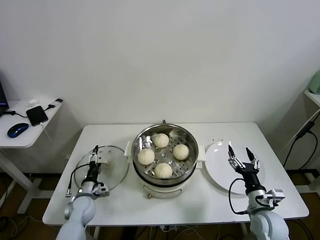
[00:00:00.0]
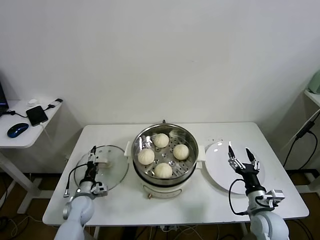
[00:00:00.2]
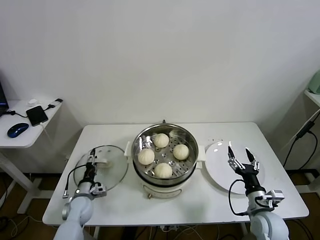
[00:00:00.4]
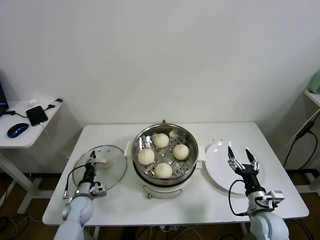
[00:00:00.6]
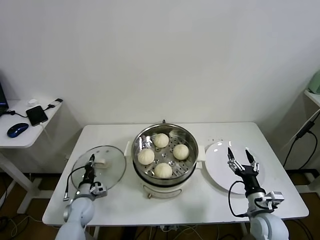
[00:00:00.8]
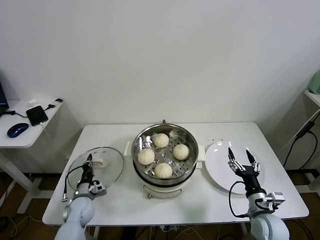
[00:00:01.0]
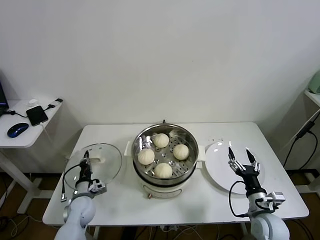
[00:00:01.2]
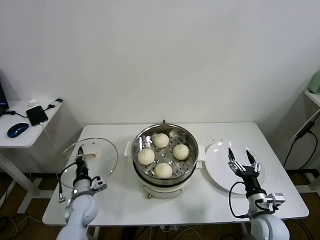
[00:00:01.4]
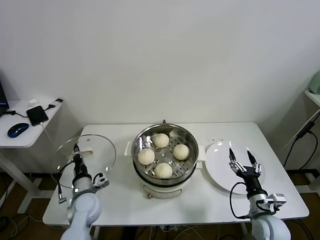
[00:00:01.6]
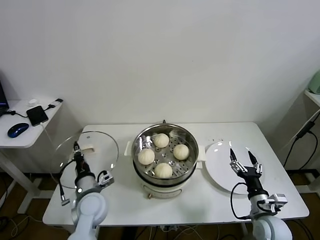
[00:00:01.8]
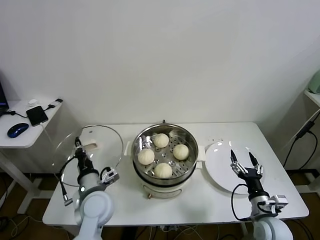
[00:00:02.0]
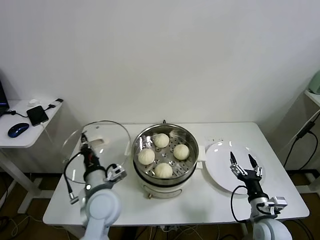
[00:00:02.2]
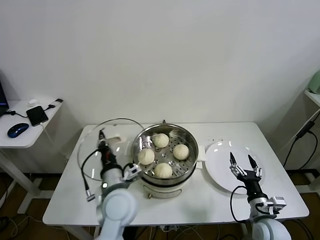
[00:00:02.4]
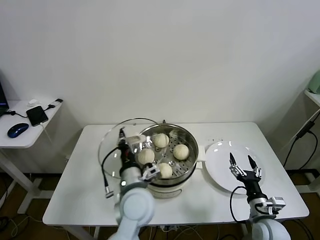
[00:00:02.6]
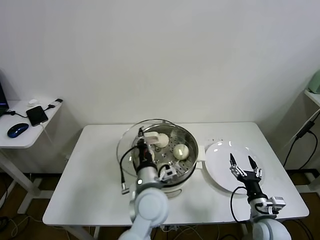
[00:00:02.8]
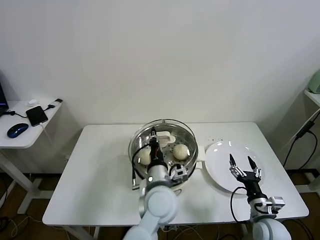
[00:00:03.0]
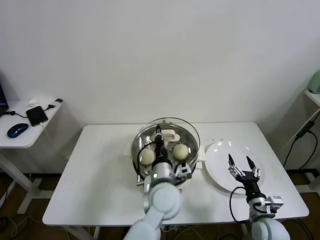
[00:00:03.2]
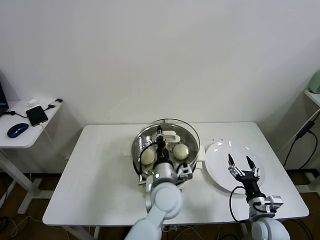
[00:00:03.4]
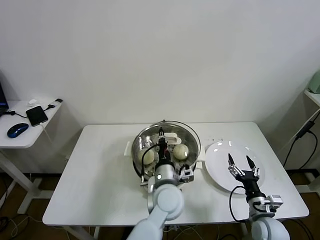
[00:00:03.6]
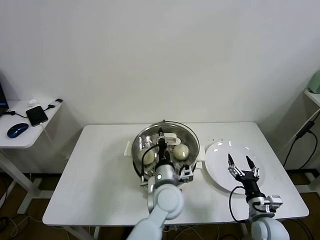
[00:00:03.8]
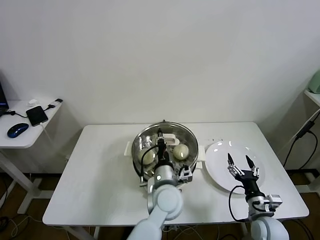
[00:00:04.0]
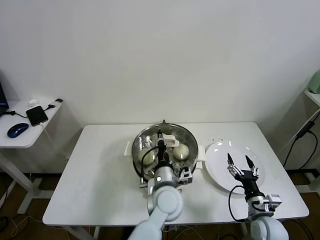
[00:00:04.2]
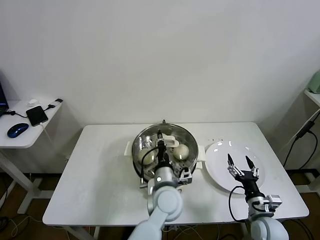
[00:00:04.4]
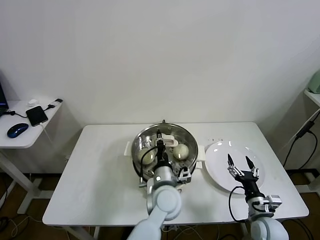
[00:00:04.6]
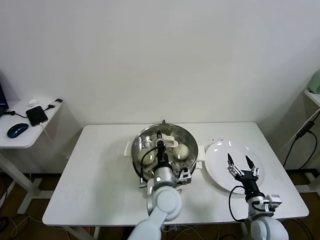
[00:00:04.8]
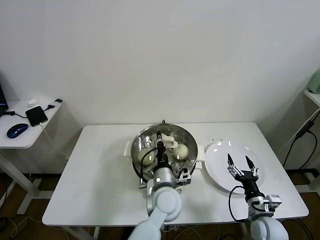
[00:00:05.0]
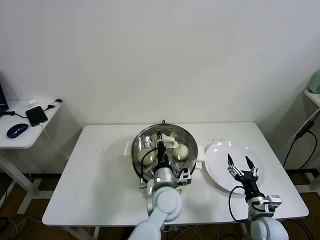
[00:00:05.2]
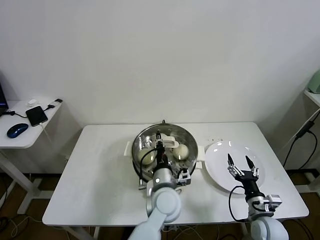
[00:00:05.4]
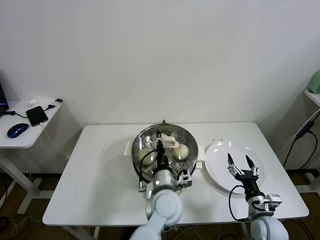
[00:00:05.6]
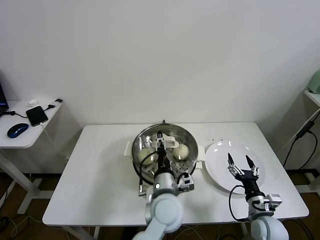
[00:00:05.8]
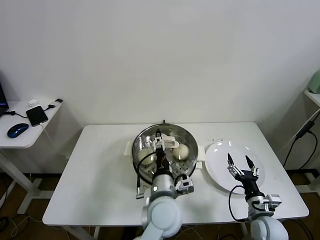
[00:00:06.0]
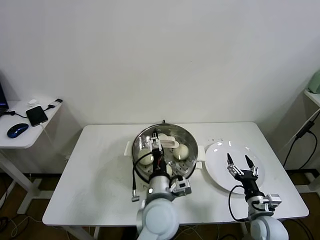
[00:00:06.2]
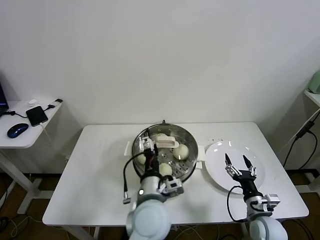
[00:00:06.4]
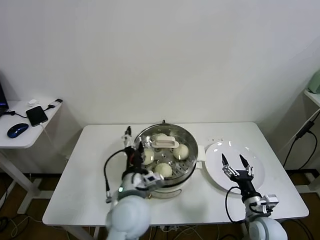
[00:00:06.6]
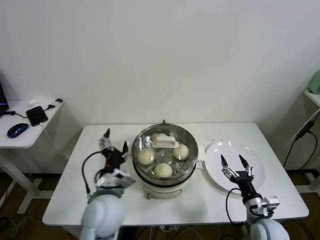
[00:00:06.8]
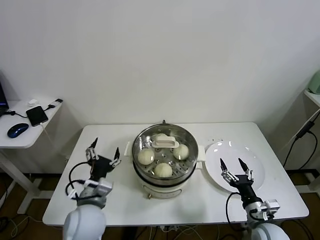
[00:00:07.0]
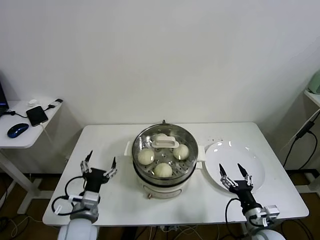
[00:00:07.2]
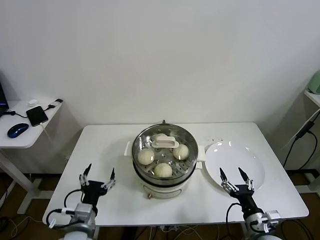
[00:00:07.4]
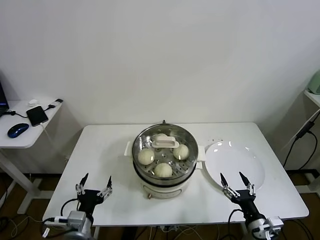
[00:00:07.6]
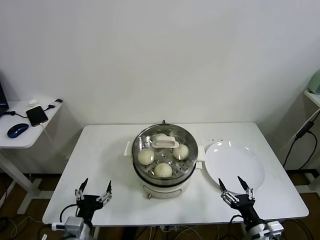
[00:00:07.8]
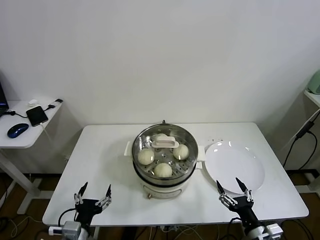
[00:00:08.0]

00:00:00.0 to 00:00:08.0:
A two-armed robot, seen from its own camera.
Task of the whole recording: take steamed baozi put them in steamer.
Step, 00:00:01.0 to 00:00:05.6: Place the pot lid on the steamer with left gripper.
00:00:00.0 to 00:00:01.6: The left gripper travels upward by approximately 10 cm, and closes its fingers.
00:00:01.6 to 00:00:03.2: The left gripper shifts approximately 30 cm to the right and upward.
00:00:03.2 to 00:00:04.8: There are only small adjustments of the grippers.
00:00:04.8 to 00:00:06.4: The left gripper travels backward and upward by approximately 10 cm, and opens up.
00:00:06.4 to 00:00:08.0: The right gripper shifts approximately 10 cm backward. Meanwhile the left gripper is displaced to the left, backward and downward by roughly 25 cm.
